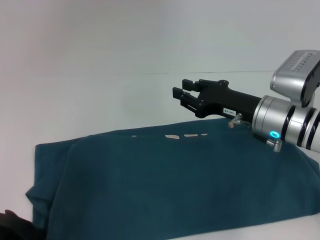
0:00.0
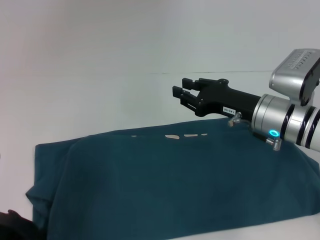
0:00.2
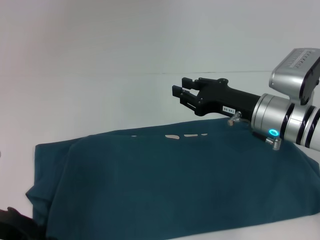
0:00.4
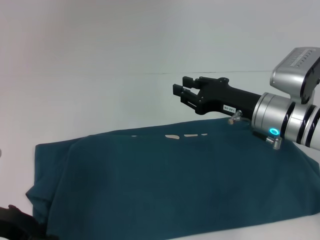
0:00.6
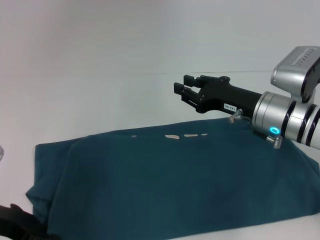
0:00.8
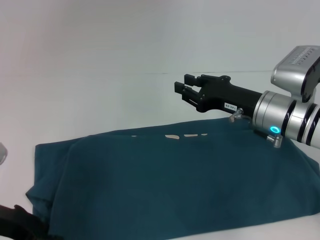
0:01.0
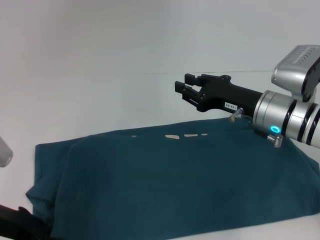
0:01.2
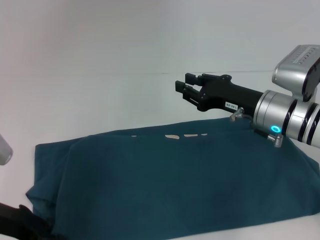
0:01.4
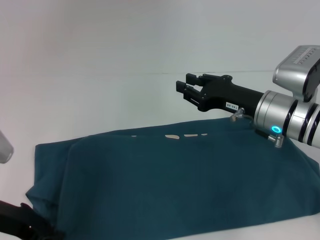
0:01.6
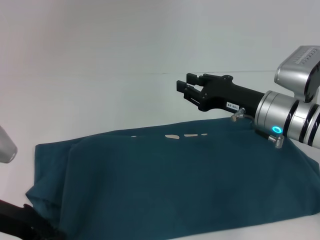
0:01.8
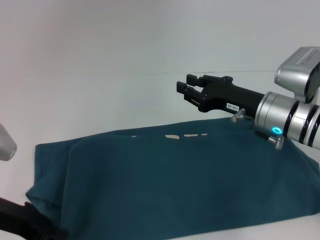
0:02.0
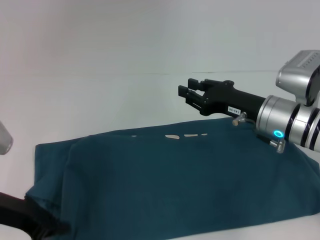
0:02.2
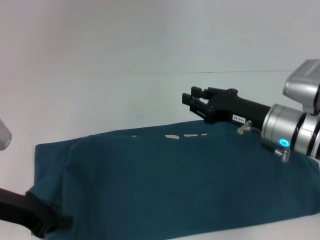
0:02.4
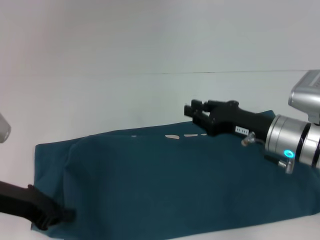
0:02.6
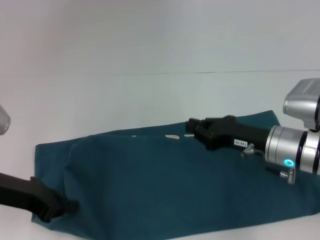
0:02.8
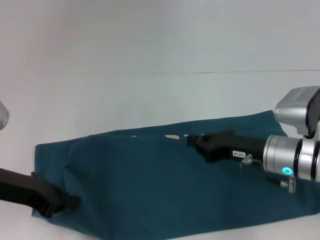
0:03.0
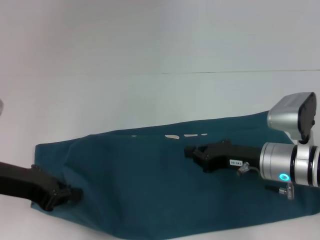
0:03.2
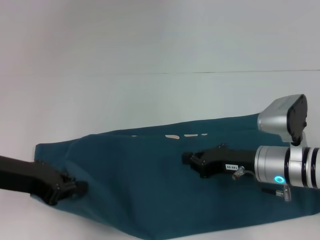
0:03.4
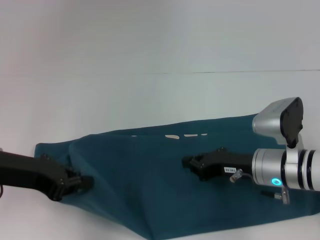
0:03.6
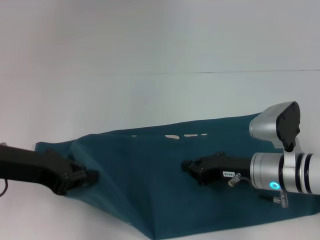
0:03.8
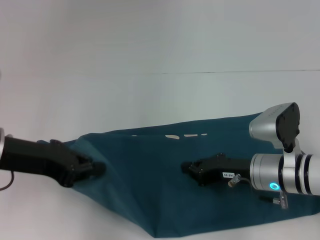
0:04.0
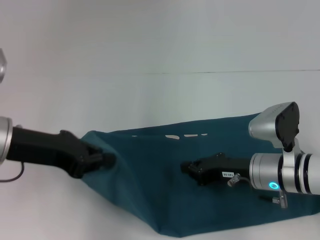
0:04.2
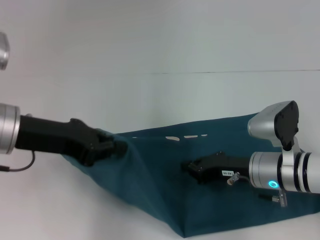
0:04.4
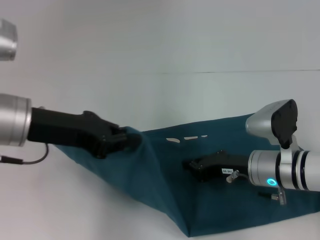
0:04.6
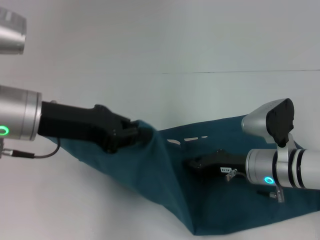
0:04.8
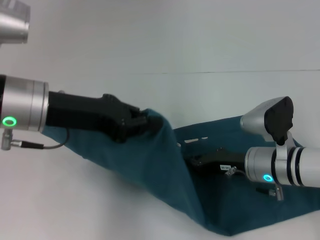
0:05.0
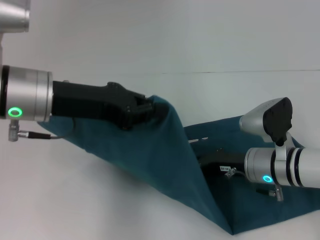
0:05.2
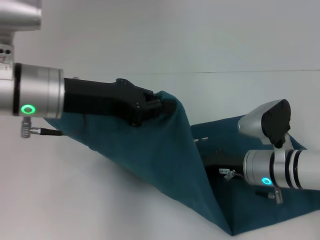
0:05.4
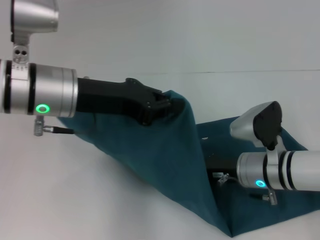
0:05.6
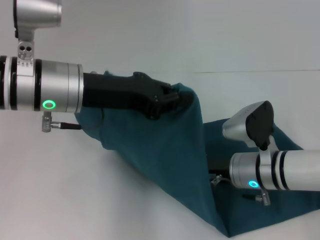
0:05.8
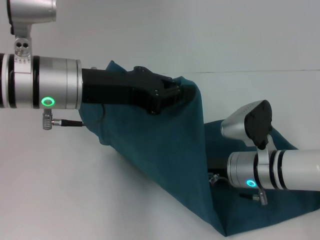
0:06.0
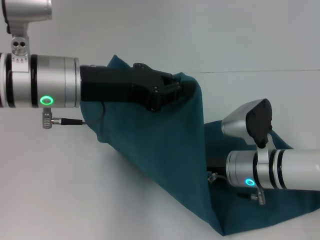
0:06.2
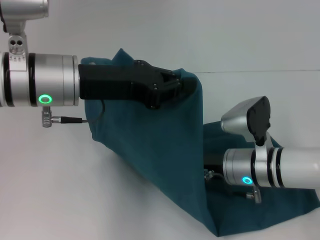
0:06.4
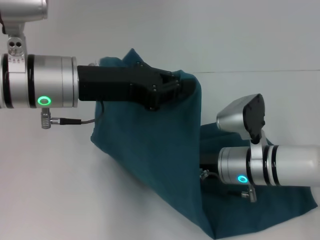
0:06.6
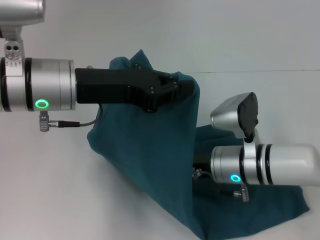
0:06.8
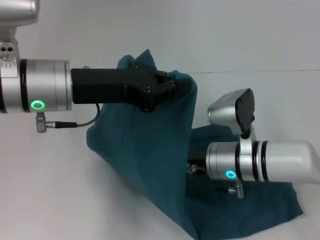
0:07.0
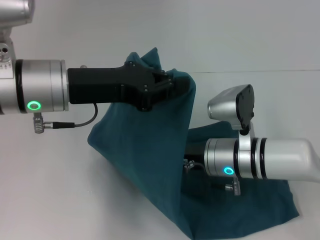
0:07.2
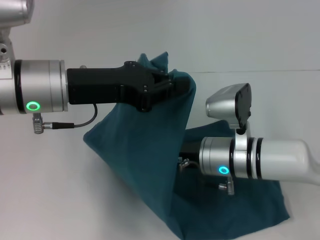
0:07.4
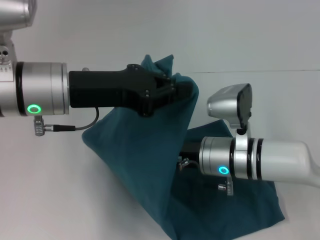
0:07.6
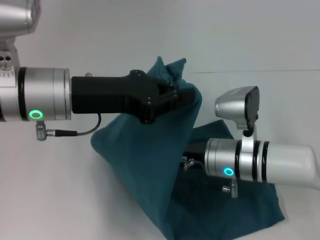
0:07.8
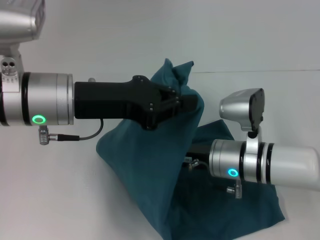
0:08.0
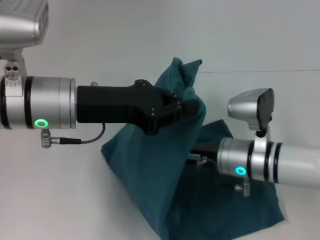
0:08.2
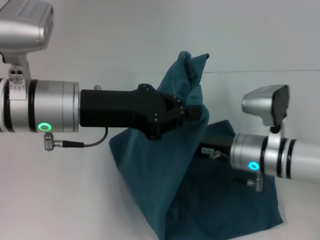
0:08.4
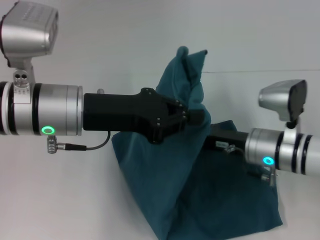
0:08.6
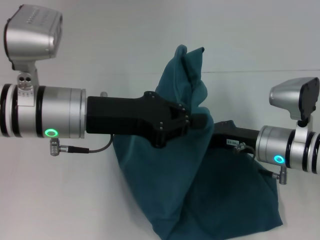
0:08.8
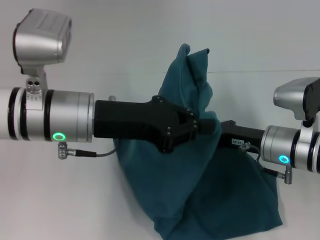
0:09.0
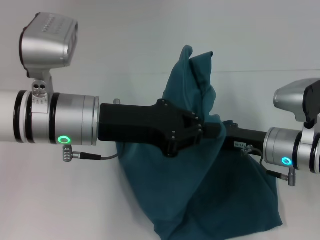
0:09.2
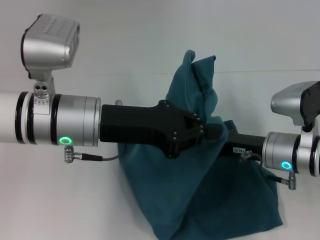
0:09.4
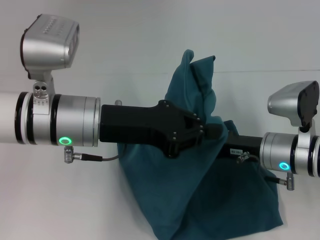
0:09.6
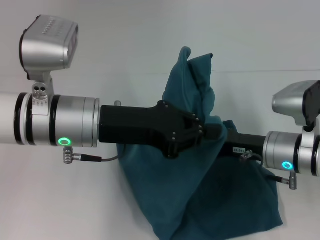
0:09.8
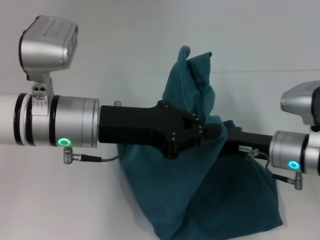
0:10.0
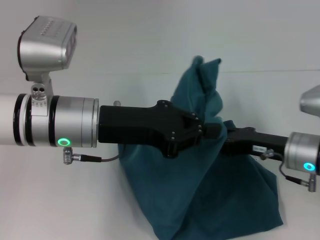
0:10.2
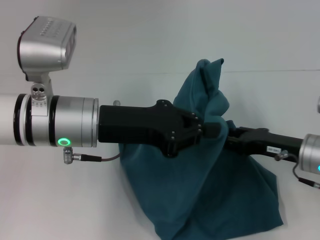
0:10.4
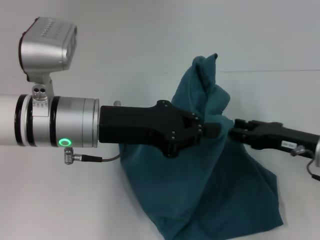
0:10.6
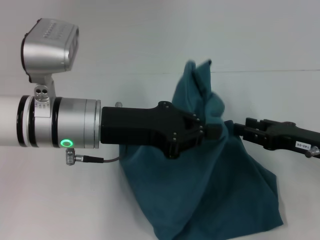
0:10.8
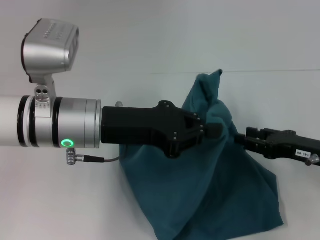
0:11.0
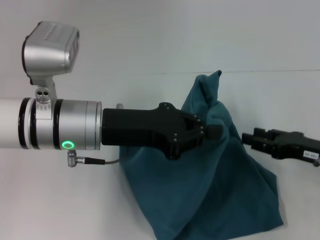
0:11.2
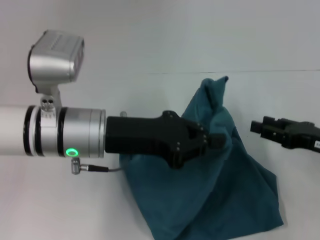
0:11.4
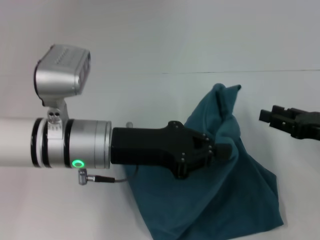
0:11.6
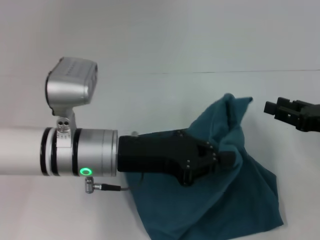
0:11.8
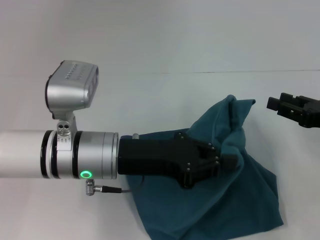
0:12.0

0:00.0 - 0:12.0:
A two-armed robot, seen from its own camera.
Step, 0:00.0 - 0:08.0: Press the middle of the clothes with your right hand.
0:00.0 - 0:01.6: The grippers make only small movements.
0:01.6 - 0:03.0: The right gripper shifts by about 5 cm, while the left gripper closes its fingers.
0:03.0 - 0:04.4: The left gripper moves upward, some 5 cm.
0:04.4 - 0:06.0: The left gripper moves to the right, approximately 5 cm.
0:06.0 - 0:07.6: The right gripper shifts by some 5 cm.
0:07.6 - 0:09.0: The right gripper is displaced to the right by approximately 10 cm.
0:09.0 - 0:10.4: The right gripper ends up some 5 cm from where it was, and opens.
0:10.4 - 0:12.0: The left gripper ends up about 5 cm from where it was. Meanwhile the right gripper shifts approximately 5 cm to the right.

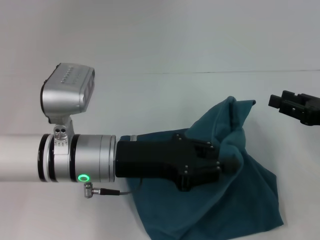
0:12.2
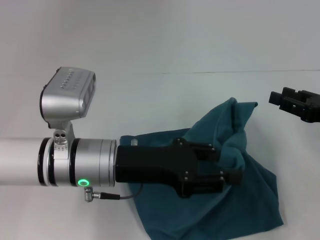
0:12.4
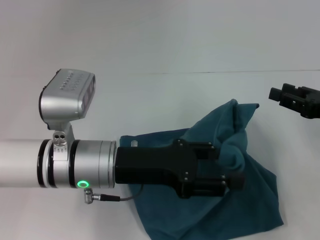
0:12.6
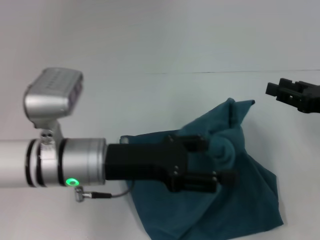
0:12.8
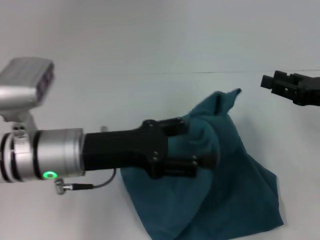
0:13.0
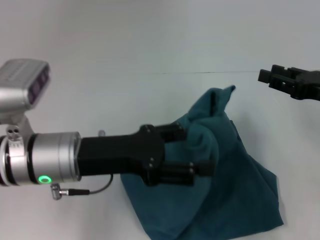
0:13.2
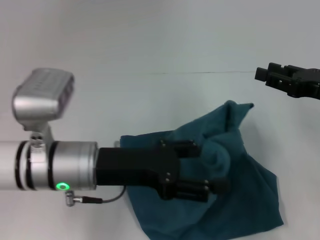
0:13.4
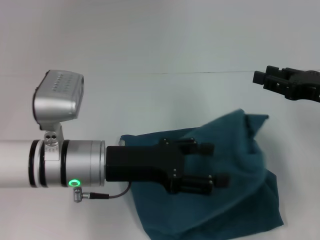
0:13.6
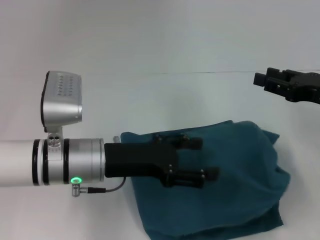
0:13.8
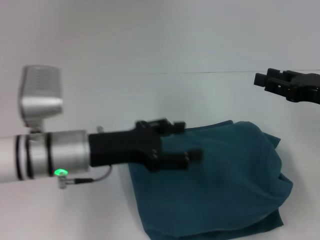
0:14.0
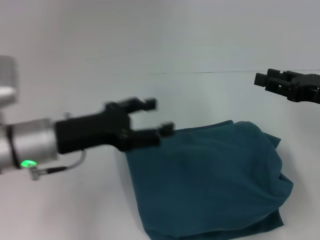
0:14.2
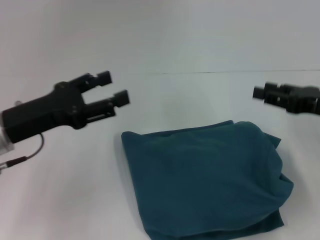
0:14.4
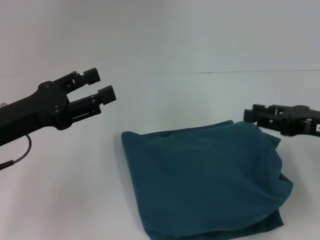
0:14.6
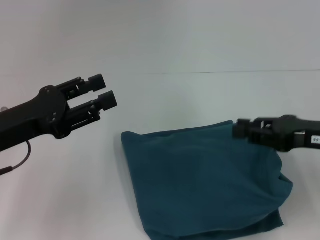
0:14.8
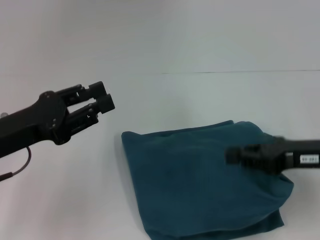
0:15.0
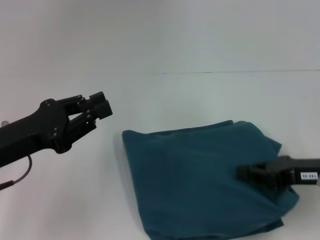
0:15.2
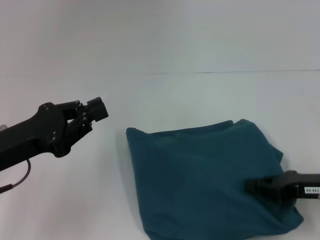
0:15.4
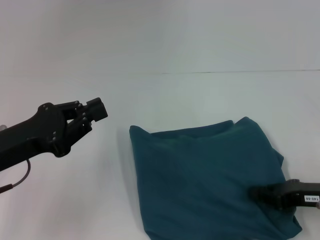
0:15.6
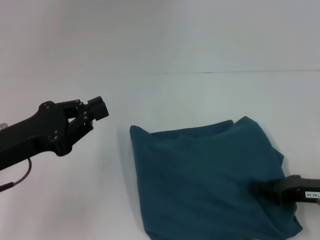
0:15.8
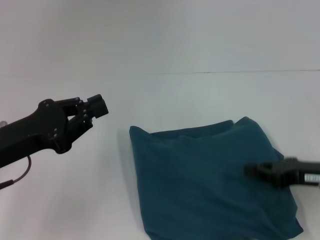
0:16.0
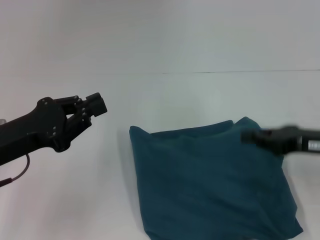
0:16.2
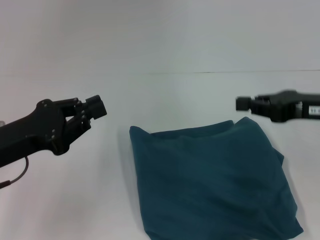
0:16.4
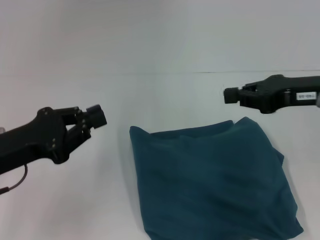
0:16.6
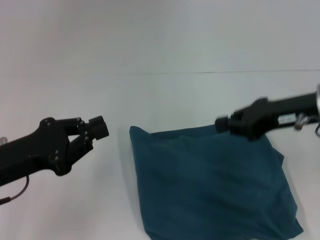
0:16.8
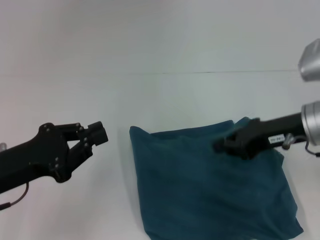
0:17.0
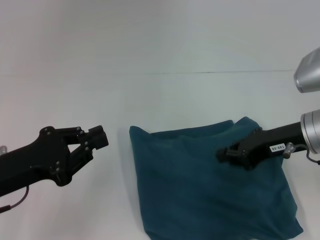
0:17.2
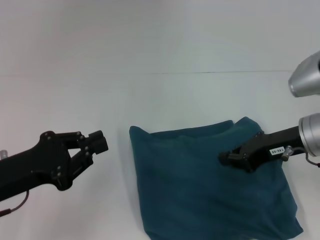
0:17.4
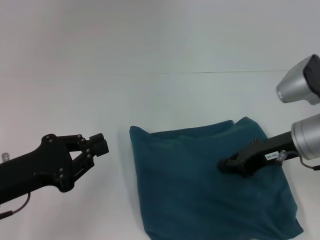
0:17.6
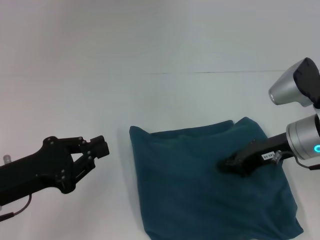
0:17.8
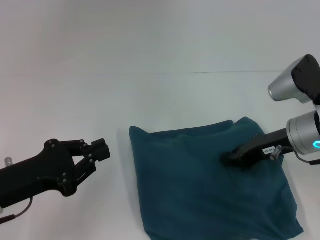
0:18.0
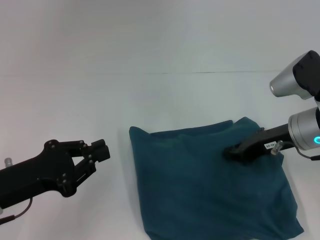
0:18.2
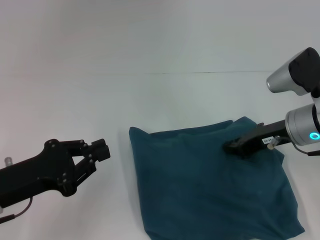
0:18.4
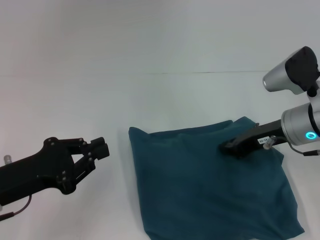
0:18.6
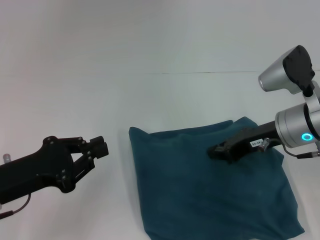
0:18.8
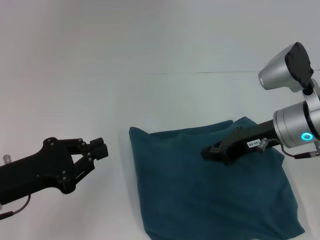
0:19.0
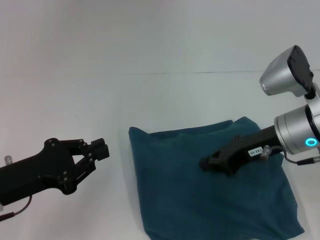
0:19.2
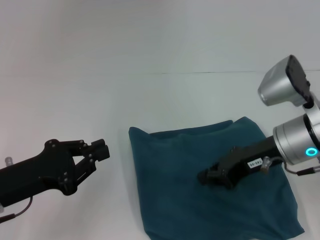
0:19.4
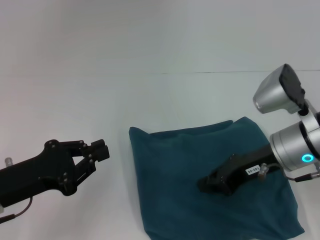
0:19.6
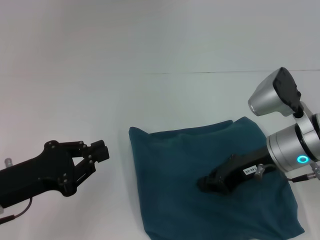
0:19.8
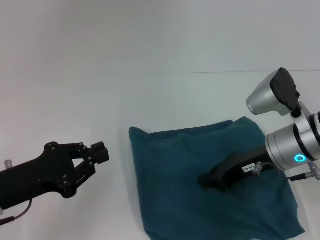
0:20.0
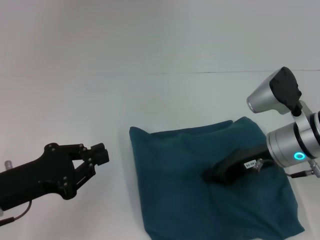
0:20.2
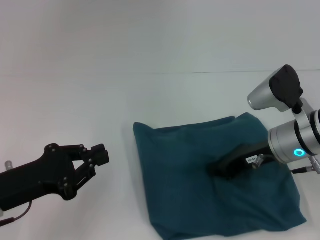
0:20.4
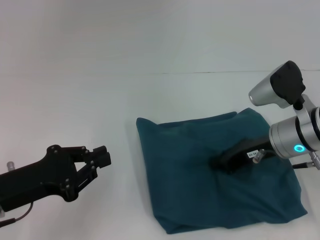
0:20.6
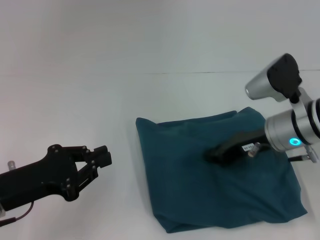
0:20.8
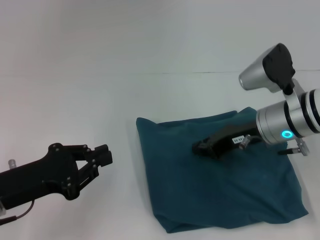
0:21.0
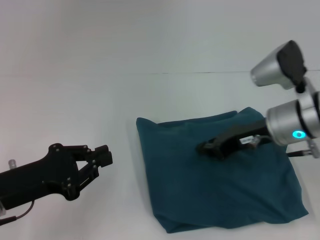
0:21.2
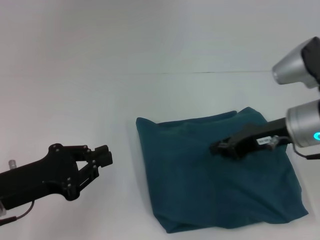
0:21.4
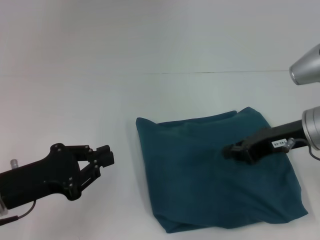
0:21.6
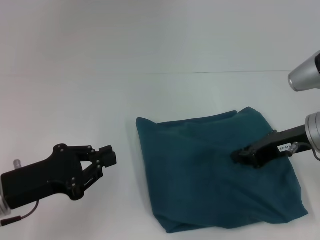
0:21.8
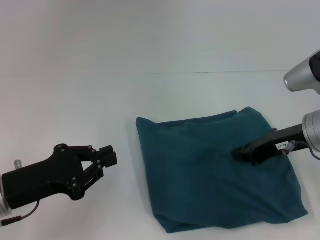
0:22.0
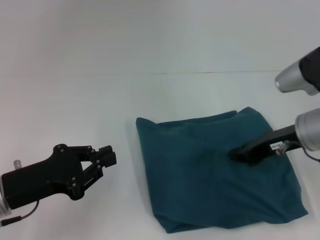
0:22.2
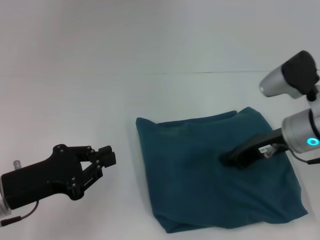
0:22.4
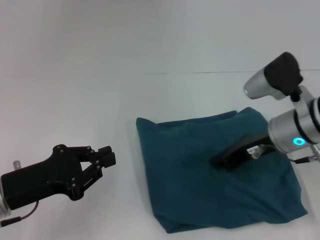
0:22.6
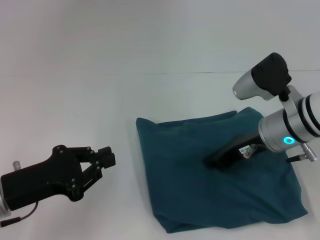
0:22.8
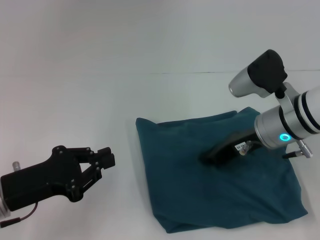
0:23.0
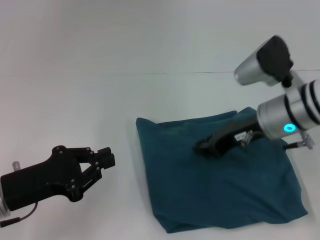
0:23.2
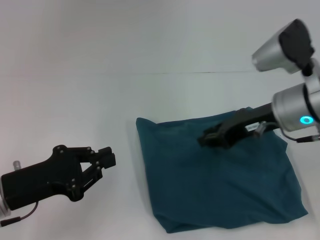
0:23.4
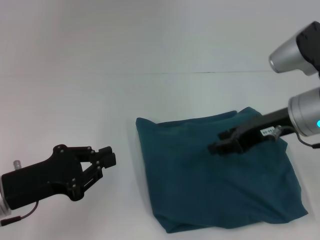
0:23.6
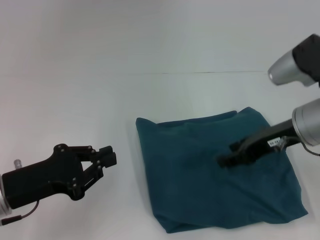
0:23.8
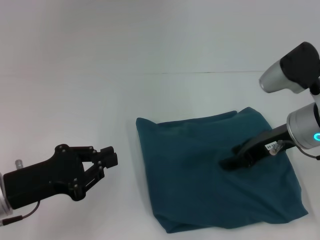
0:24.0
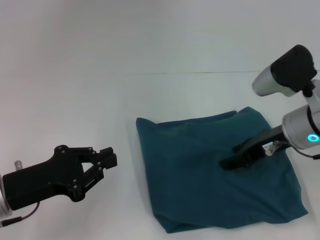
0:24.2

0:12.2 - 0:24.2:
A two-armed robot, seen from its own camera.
0:12.2 - 0:13.8: The left gripper opens.
0:13.8 - 0:15.2: The right gripper shifts by roughly 5 cm, and closes up. Meanwhile the left gripper heads to the left, covering roughly 10 cm, and closes its fingers.
0:15.2 - 0:16.6: The right gripper goes about 10 cm upward and forward.
0:16.6 - 0:18.2: The right gripper is displaced downward by roughly 10 cm.
0:18.2 - 0:19.8: The grippers move only a little.
0:21.2 - 0:22.6: The grippers move only a little.
0:22.6 - 0:24.2: The right gripper opens its fingers.
